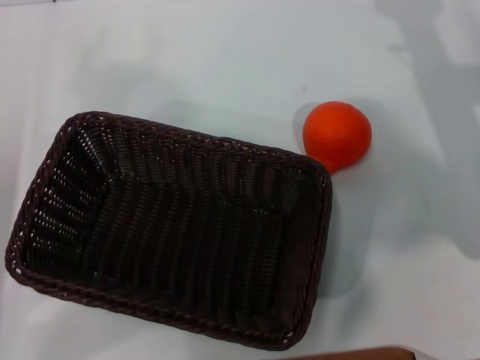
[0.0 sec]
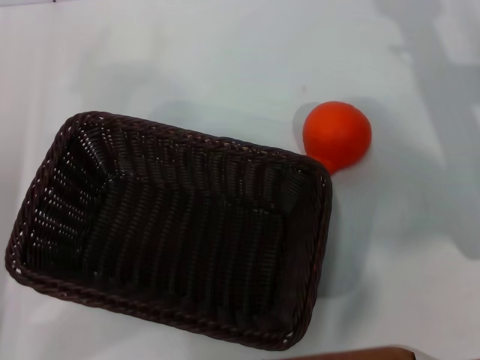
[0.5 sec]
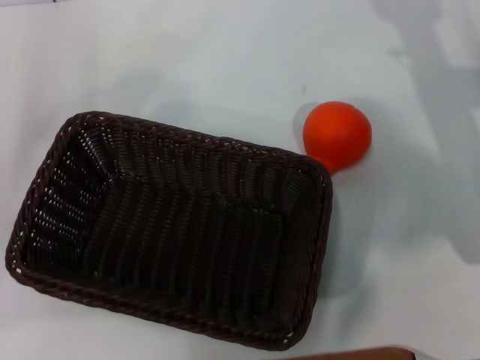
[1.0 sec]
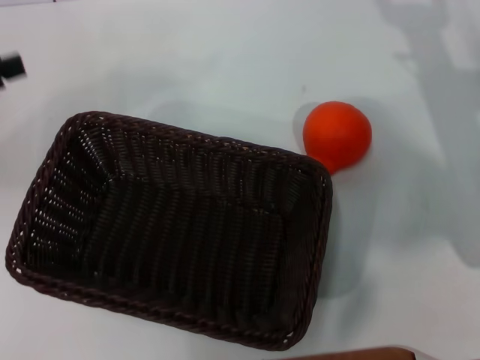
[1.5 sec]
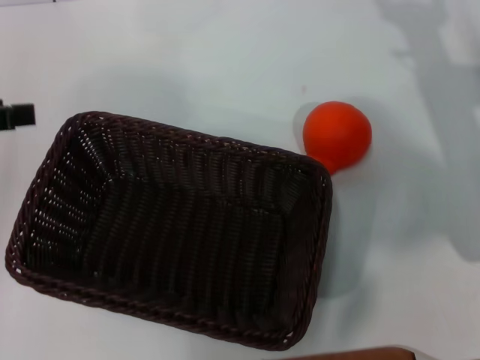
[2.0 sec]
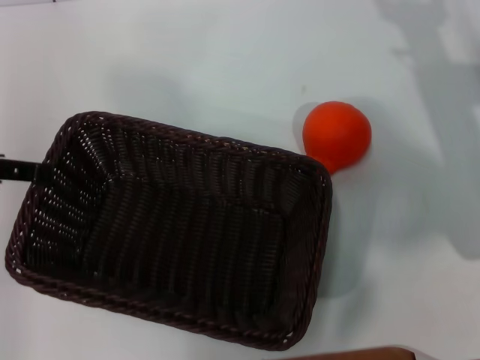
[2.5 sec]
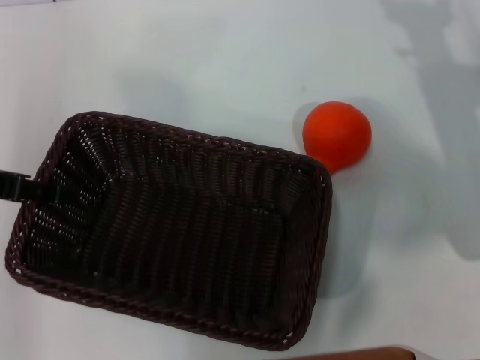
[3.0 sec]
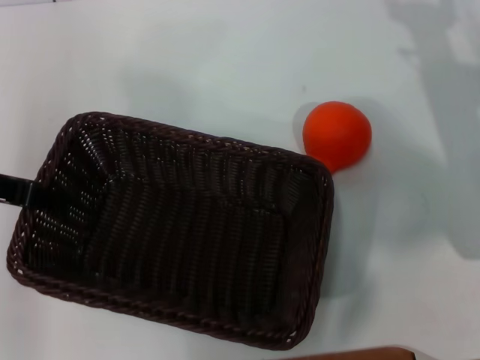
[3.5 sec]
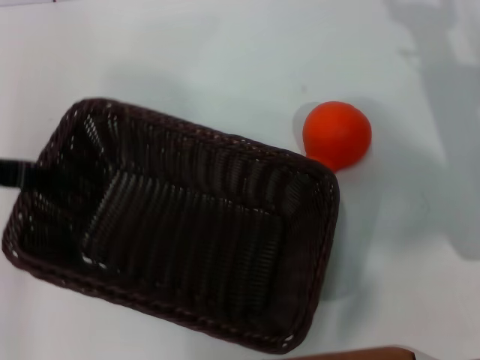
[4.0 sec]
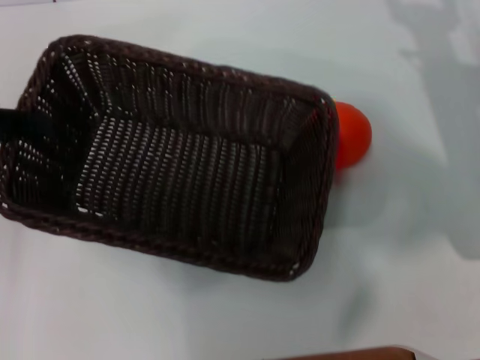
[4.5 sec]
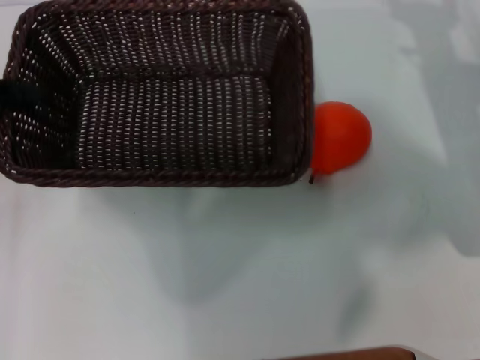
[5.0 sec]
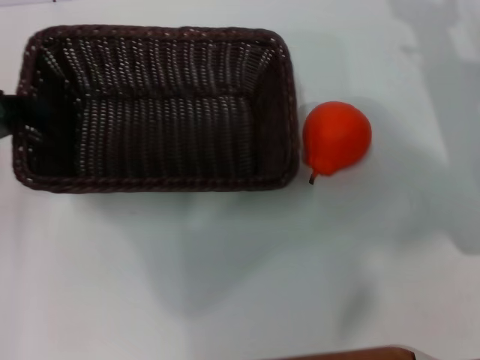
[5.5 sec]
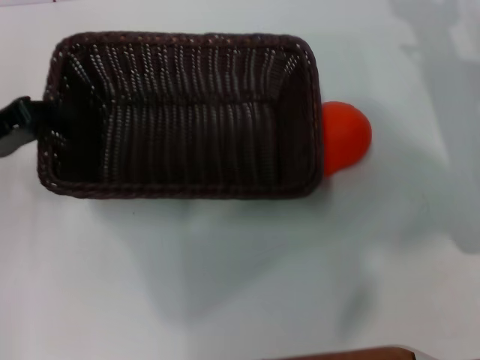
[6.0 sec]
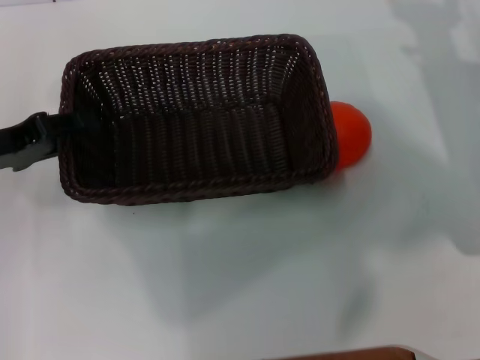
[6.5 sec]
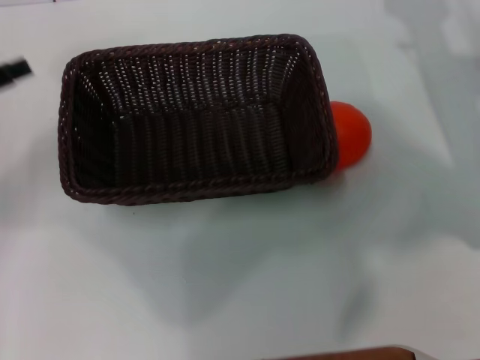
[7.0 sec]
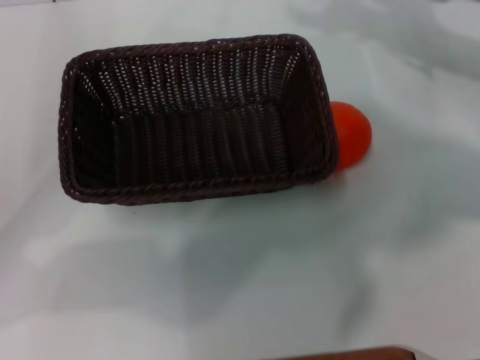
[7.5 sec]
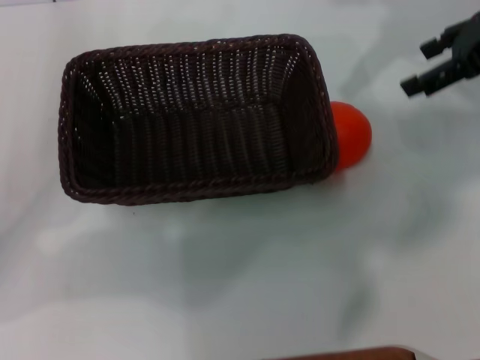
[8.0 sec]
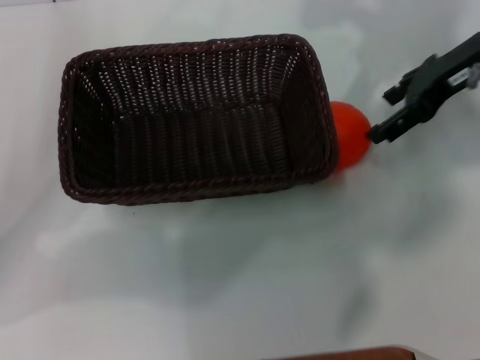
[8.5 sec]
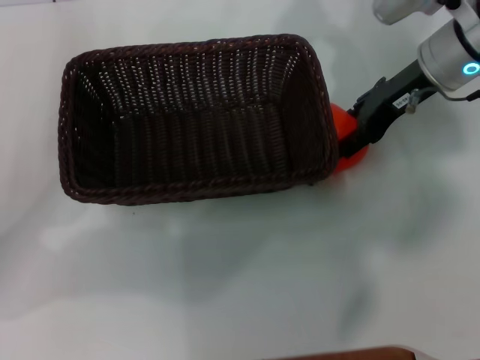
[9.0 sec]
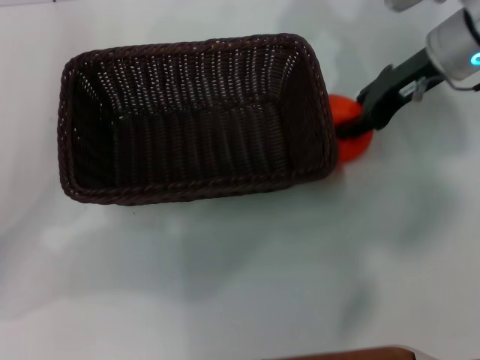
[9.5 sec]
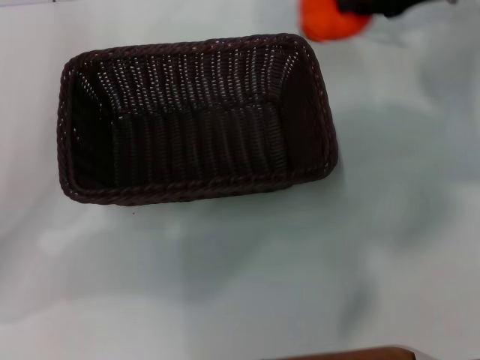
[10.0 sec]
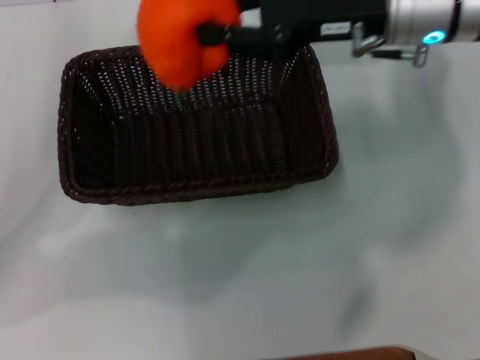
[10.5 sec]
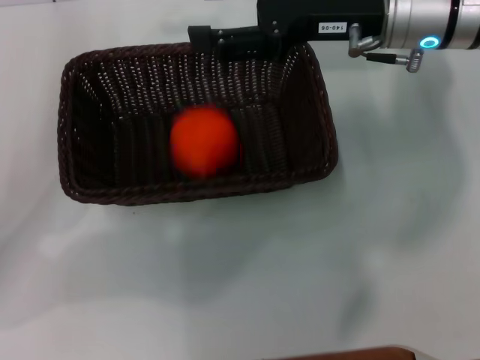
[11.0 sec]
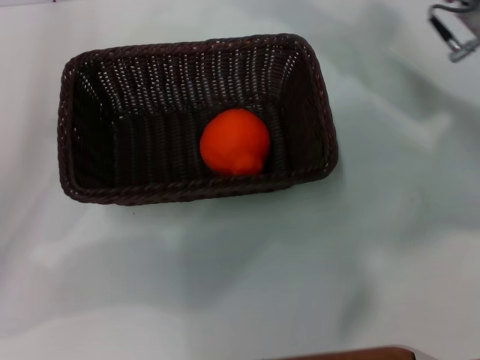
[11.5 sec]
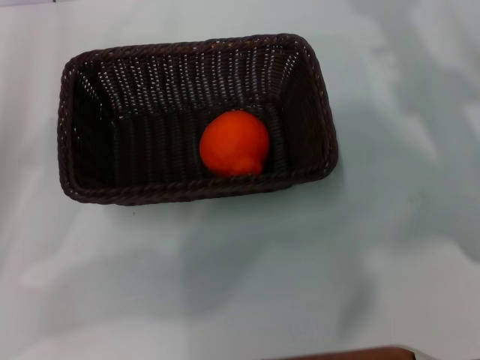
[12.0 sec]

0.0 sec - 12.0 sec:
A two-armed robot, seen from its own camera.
Task of the whole recording: the left gripper pick up the black basket and place it horizontally in the middle of the table, the right gripper pick up the orange and place it into the black basket.
Step, 0.0 sec - 4.0 sec: Pick up the dark basket with the left gripper.
Step, 4.5 sec - 6.5 sec: Place the dark basket in the center of view with the left gripper.
Step, 7.0 sec - 9.5 sec: Pick up the orange with the right gripper.
Step, 10.0 sec - 10.5 sec: Place the orange into the dark basket with the right gripper.
0.0 sec - 2.0 sec: The left gripper is displaced upward by approximately 15 cm.
2.0 sec - 4.0 sec: The left gripper moves some 5 cm, and closes.
4.0 sec - 6.0 sec: The left gripper moves downward, some 5 cm.
6.0 sec - 8.0 sec: The left gripper opens. The right gripper travels upward by approximately 15 cm.
8.0 sec - 10.0 sec: The right gripper closes up.
10.0 sec - 12.0 sec: The right gripper is displaced backward and downward by approximately 15 cm, moves roughly 10 cm to the left and comes back, and opens.
